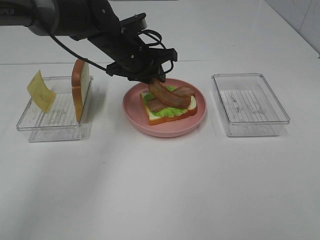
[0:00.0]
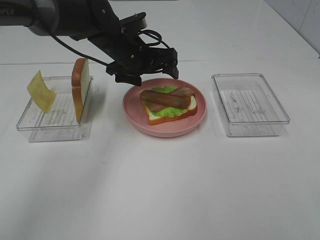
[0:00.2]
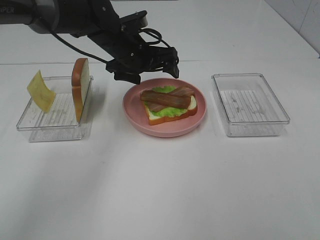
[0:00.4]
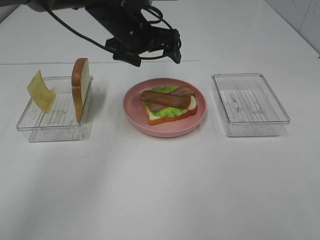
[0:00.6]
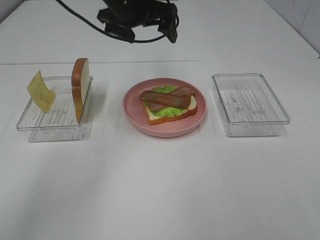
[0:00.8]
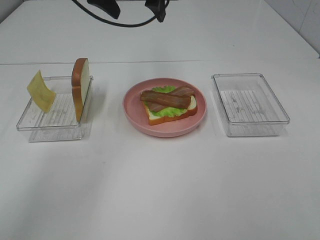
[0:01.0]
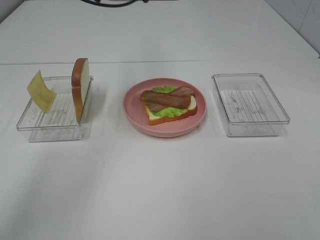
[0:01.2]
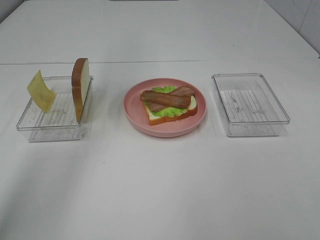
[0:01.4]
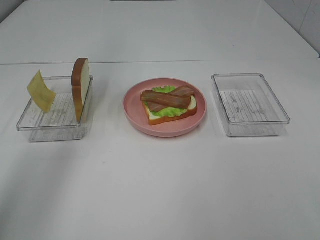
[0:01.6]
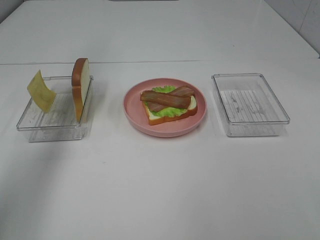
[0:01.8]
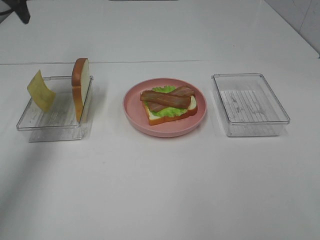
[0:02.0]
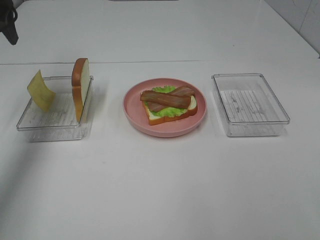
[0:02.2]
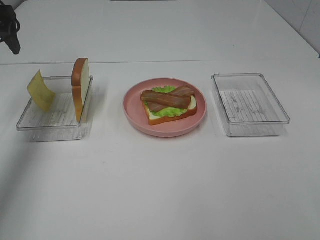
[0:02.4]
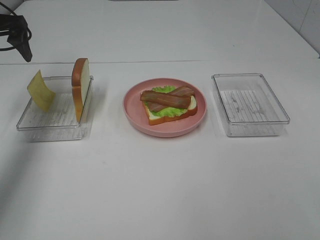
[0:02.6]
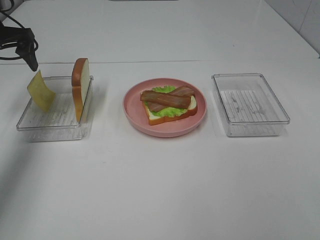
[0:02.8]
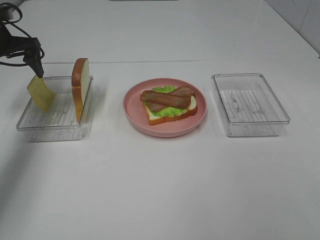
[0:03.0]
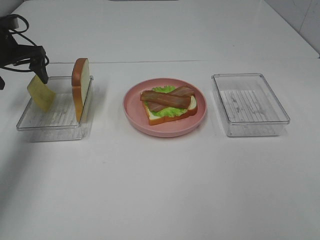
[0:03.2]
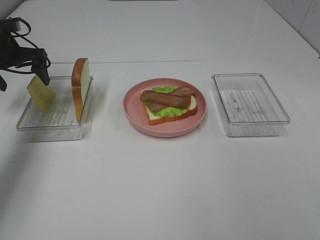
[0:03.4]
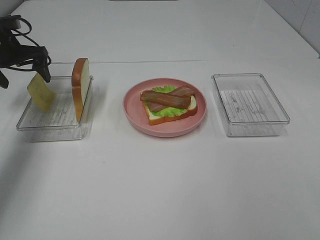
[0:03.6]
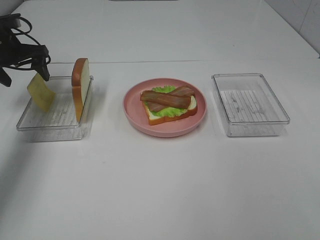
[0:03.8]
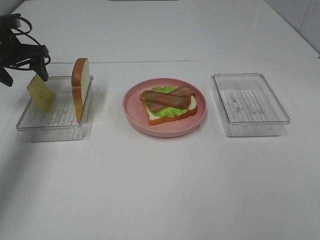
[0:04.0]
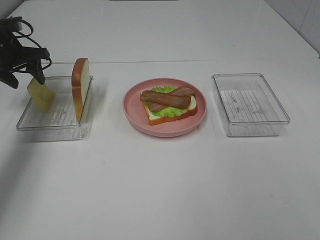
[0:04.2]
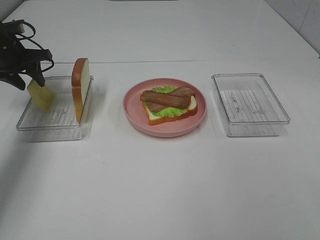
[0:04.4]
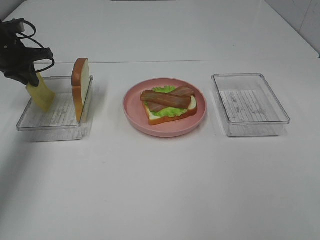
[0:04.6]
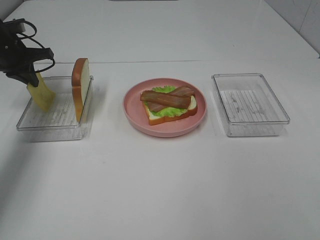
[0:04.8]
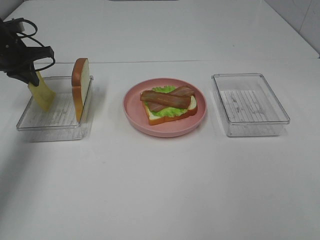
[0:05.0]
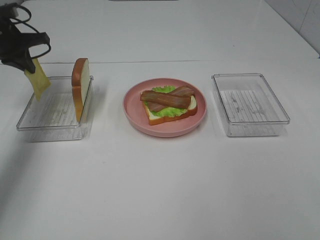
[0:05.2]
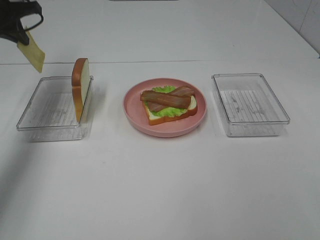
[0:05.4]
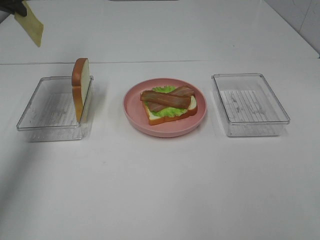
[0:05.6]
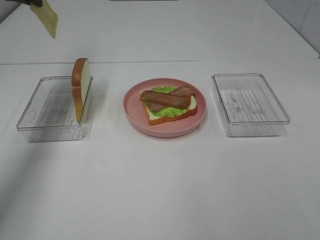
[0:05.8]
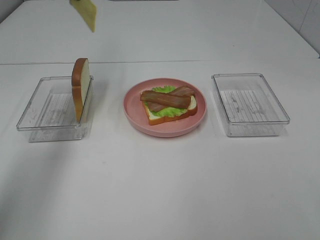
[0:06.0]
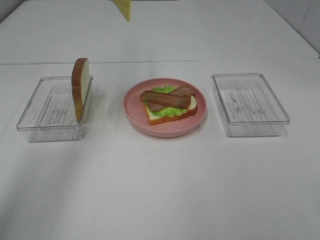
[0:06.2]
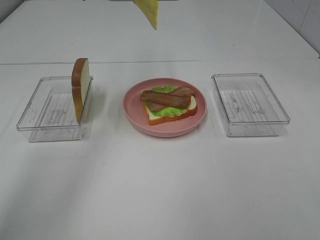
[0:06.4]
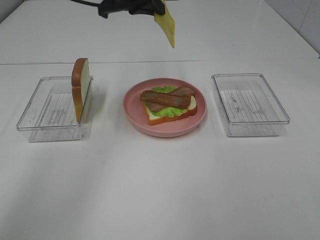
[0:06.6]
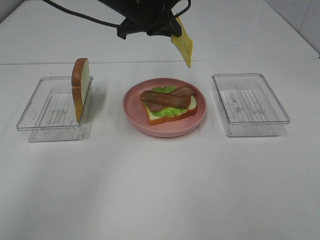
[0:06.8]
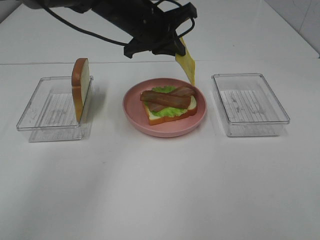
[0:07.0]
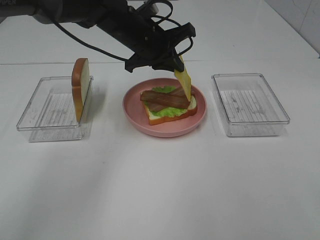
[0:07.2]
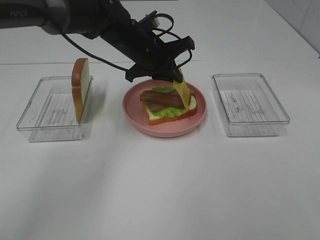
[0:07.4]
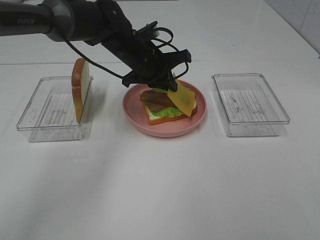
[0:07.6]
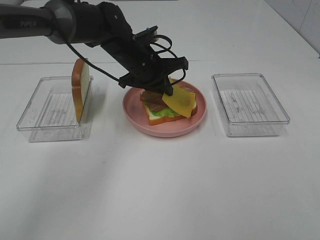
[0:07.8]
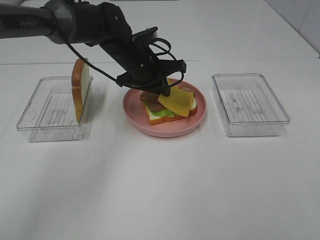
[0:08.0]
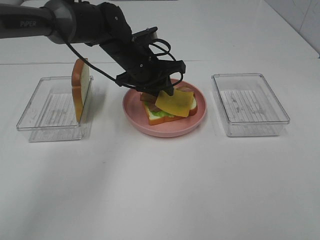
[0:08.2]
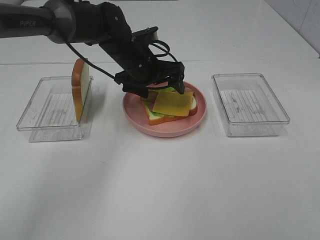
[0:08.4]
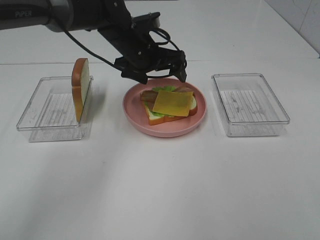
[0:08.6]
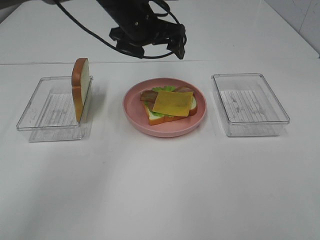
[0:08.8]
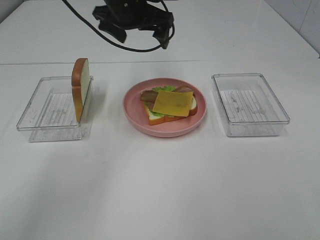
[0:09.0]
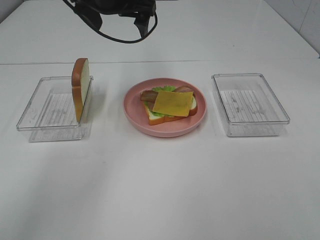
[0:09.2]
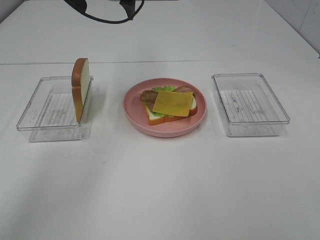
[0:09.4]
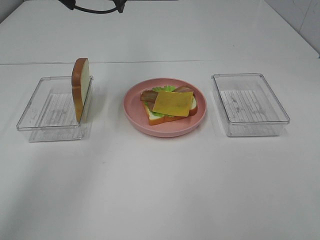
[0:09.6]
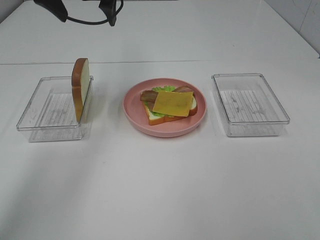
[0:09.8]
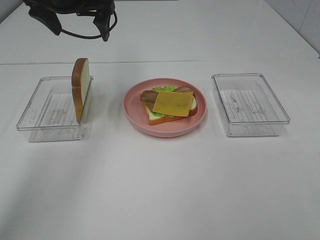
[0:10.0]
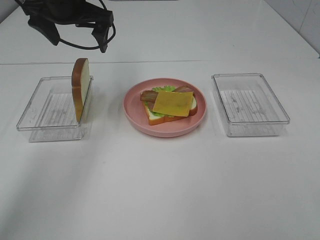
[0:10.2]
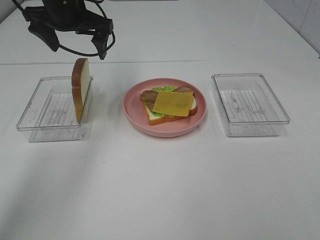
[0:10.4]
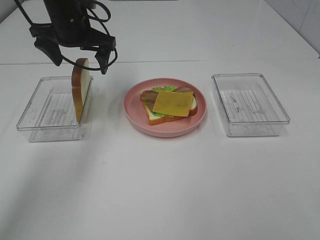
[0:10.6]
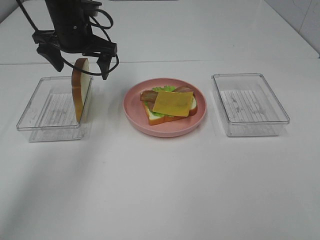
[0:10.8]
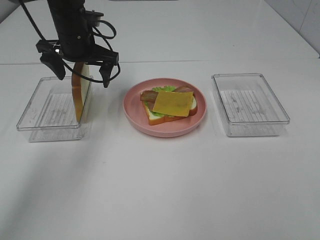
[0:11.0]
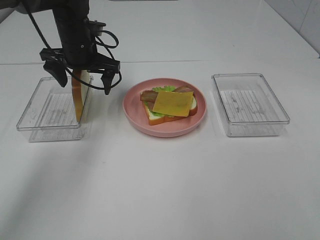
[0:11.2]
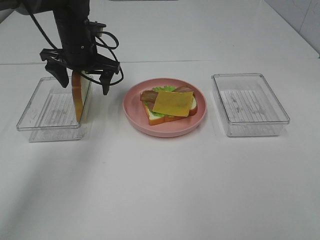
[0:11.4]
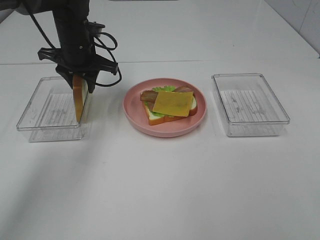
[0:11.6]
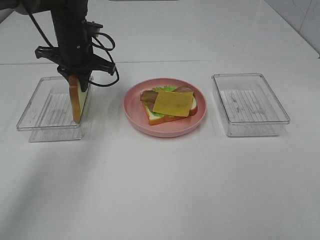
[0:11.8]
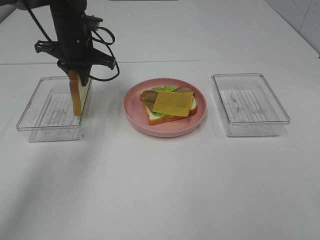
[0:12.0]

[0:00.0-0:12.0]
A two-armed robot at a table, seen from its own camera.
Task of the whole recording: Make sandwiches.
Step, 0:00.6 to 0:04.6: Left hand:grab the cheese slice.
Step, 0:04.8 to 0:08.4: Left hand:place the cheese slice on top of the bacon.
Step, 0:08.6 to 0:11.8: Left hand:grab the bread slice.
0:00.0 to 0:01.6: The left gripper shifts approximately 30 cm upward and to the left, and opens its fingers.
0:01.6 to 0:03.0: The left gripper is displaced downward and to the left by roughly 25 cm.
0:03.0 to 0:04.4: The left gripper closes up.
0:04.4 to 0:06.0: The left gripper travels upward and to the right by some 20 cm, and closes up.
0:06.0 to 0:07.6: The left gripper goes some 25 cm to the right and downward.
0:07.6 to 0:09.0: The left gripper goes some 10 cm upward, and opens up.
0:09.0 to 0:10.4: The left gripper moves to the left, about 10 cm.
0:10.4 to 0:12.0: The left gripper heads downward, covering approximately 5 cm, and closes.

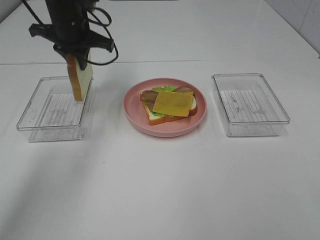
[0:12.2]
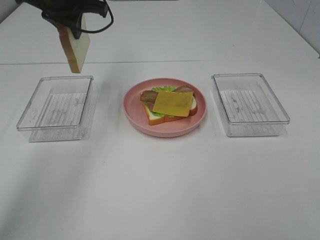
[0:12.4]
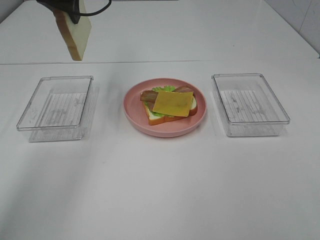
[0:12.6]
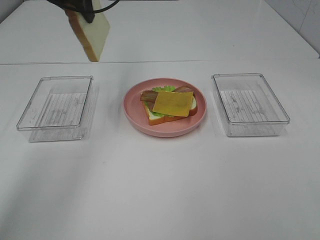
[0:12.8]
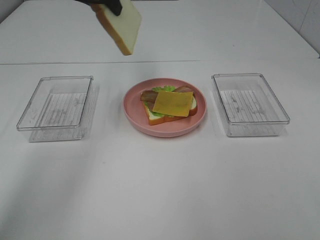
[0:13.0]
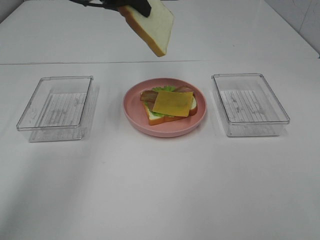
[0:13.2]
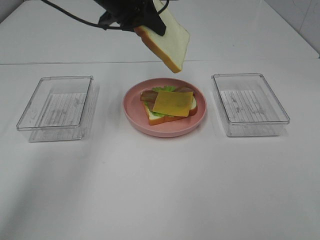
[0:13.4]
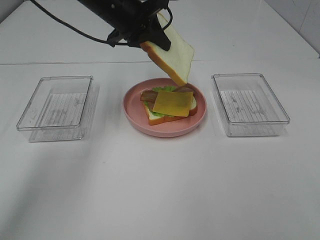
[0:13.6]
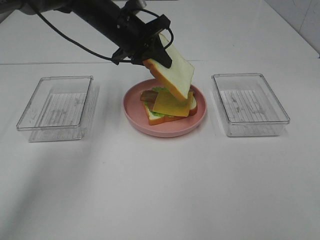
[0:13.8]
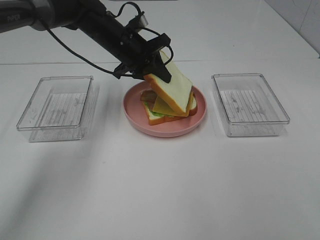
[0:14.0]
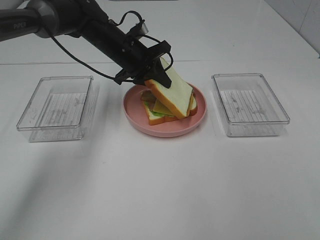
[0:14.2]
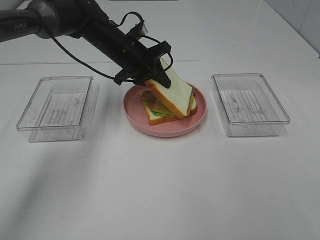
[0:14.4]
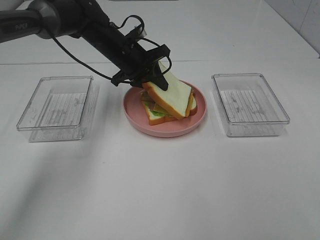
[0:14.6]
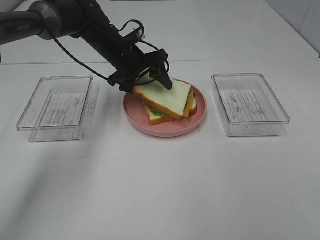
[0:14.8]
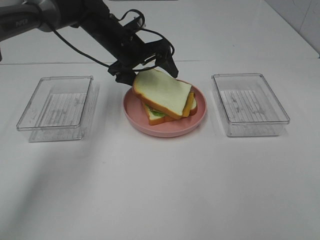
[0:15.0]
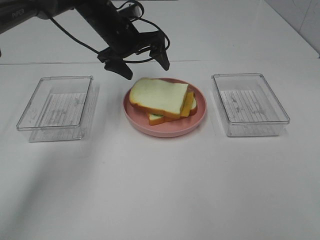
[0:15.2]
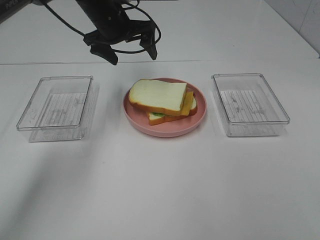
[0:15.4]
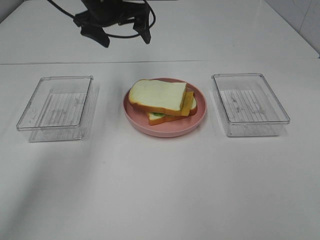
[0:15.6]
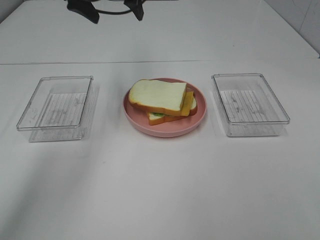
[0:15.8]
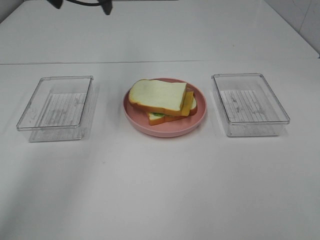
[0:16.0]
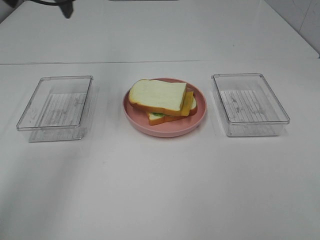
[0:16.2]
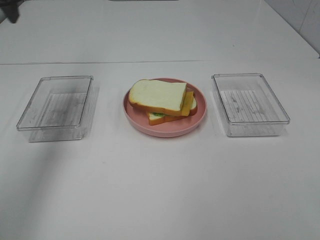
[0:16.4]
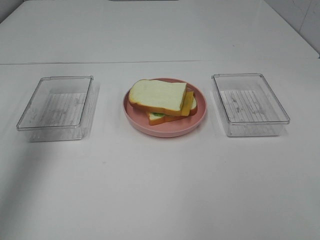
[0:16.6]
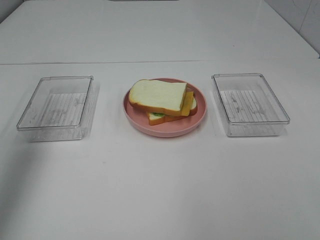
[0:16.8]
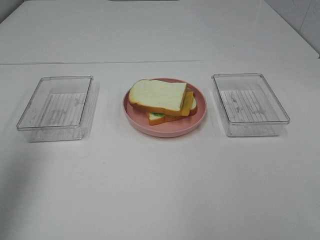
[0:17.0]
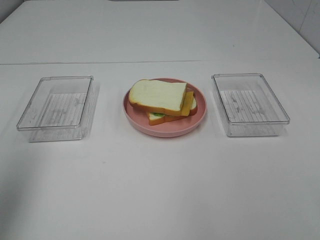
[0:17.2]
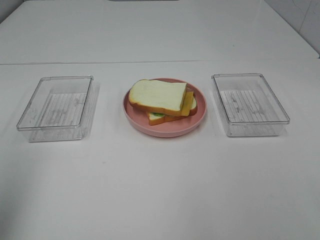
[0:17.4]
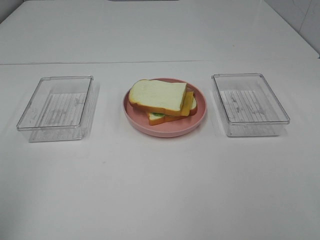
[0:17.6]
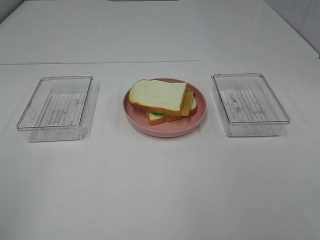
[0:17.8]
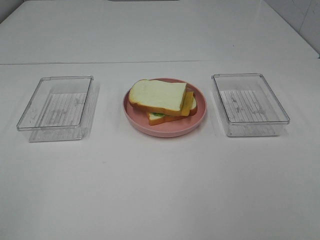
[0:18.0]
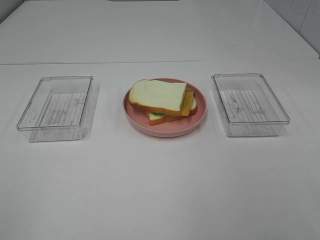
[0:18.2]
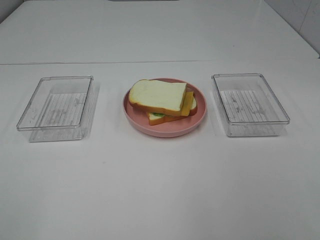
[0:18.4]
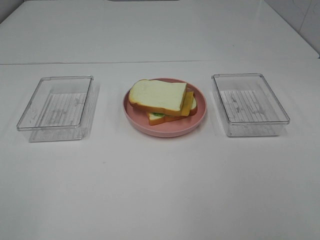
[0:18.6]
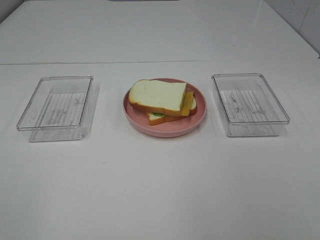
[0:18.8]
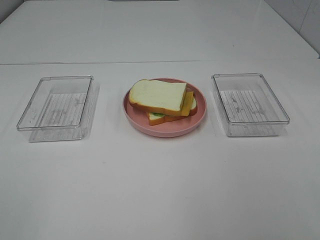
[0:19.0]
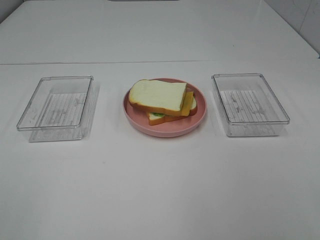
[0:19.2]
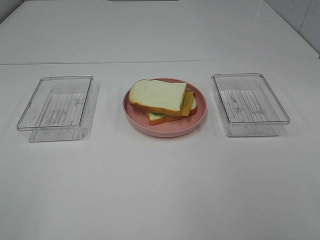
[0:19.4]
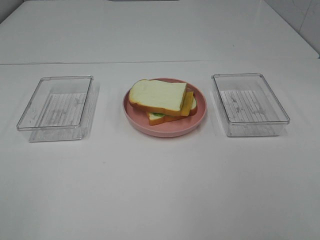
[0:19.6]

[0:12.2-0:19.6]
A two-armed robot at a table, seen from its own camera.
Task of the whole recording: Make sandwiches.
Step, 0:12.2 to 0:15.2: Left hand:place bacon on bacon.
0:12.2 to 0:13.6: The left gripper is displaced to the right by roughly 10 cm, and goes upward and returns, about 10 cm each way.
0:13.6 to 0:15.2: The left gripper opens up.
0:15.2 to 0:16.6: The left gripper is displaced to the left, upward and backward by some 35 cm.
0:16.6 to 0:18.2: The left gripper is displaced backward by roughly 35 cm.

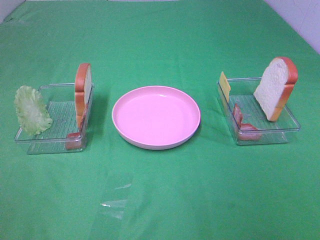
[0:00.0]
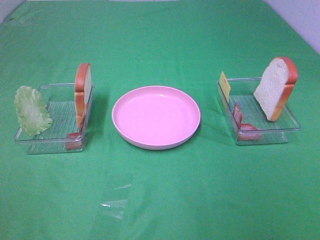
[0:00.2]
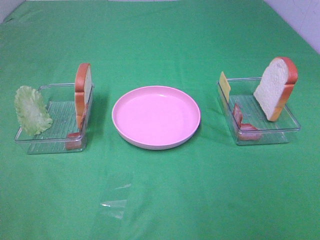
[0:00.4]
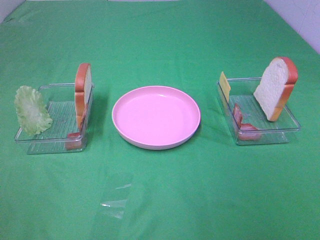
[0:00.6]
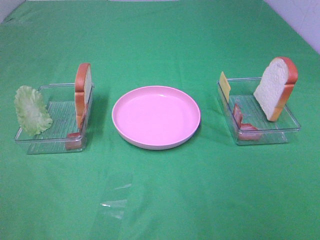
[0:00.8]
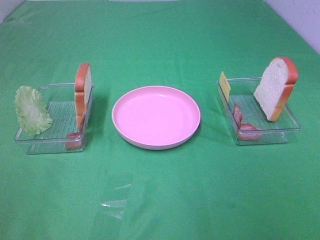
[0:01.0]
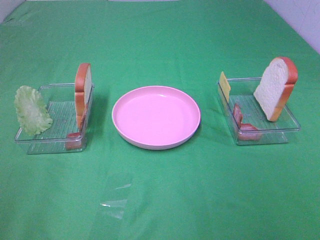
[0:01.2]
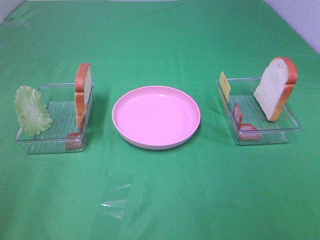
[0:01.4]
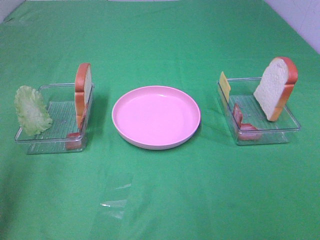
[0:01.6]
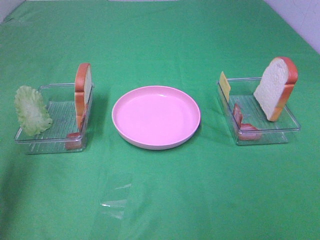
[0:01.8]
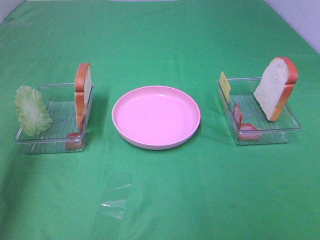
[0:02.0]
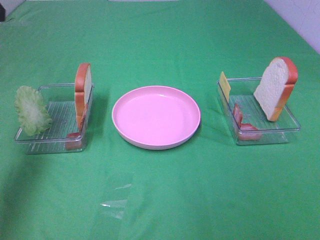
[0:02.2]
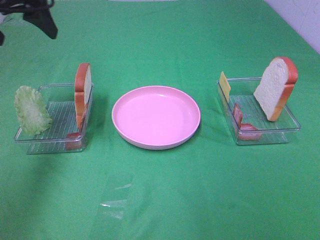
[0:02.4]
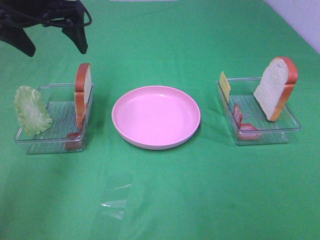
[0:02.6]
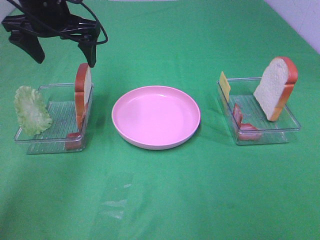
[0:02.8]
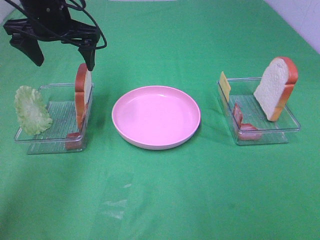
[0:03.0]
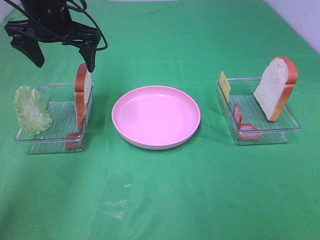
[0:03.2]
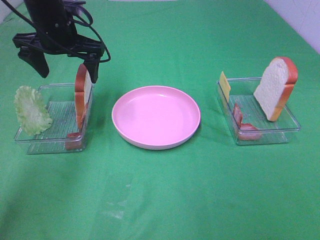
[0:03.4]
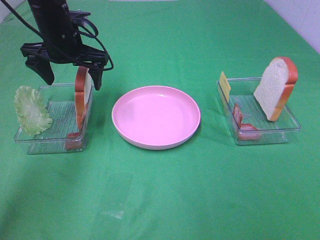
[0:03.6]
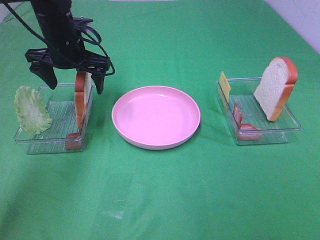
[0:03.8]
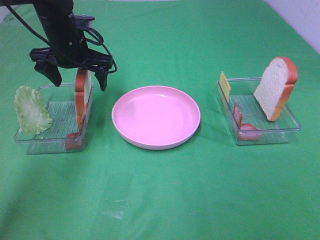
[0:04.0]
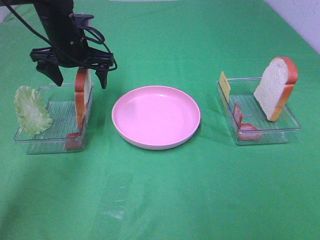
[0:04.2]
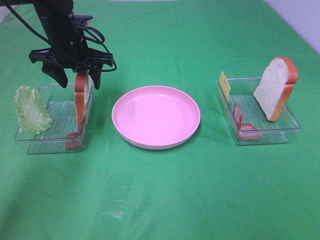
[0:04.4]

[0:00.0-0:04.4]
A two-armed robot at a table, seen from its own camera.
Task of the whole recording: Make sandwiches.
0:01.4 to 0:03.0: The left gripper moves forward and to the right, some 35 cm.
0:03.0 to 0:04.4: The left gripper travels downward by roughly 5 cm.
